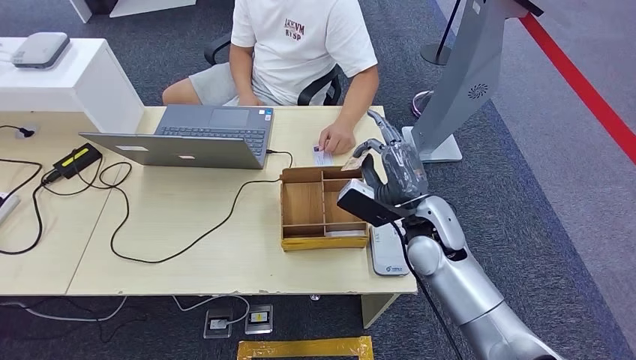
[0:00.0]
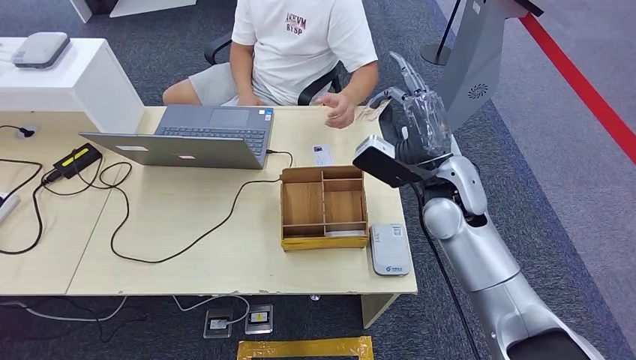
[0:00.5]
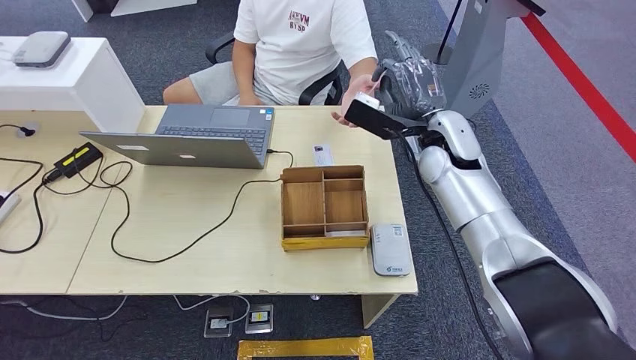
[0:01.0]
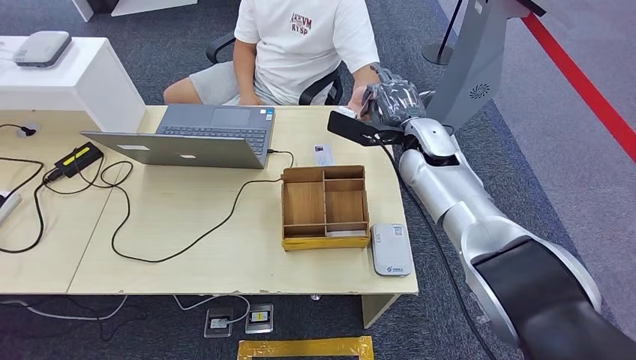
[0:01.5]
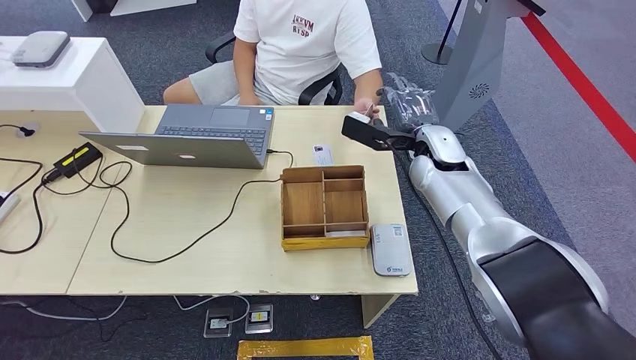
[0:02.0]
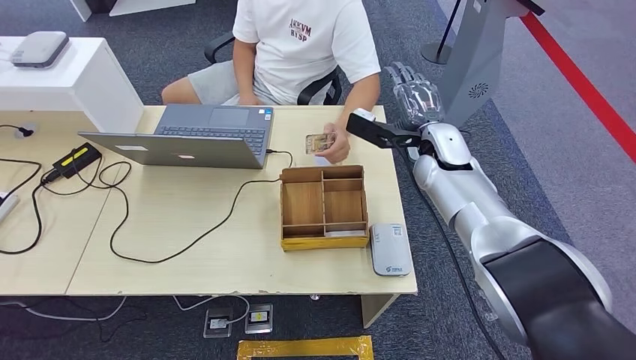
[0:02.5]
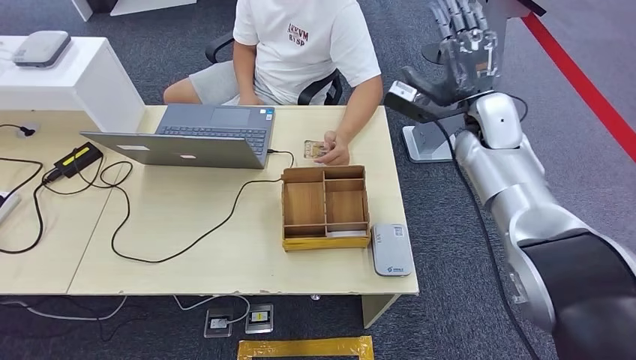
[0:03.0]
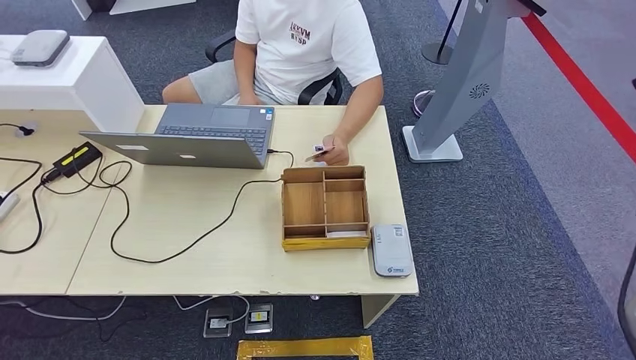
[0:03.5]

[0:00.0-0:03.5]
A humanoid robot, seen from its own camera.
Step, 0:00.0 to 0:03.5: Hand the room key to the person.
0:00.0 to 0:02.0: The right hand heads forward and upward, covering some 15 cm.
0:02.0 to 0:03.5: The right hand goes roughly 35 cm to the right.
